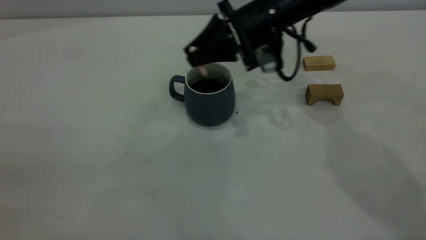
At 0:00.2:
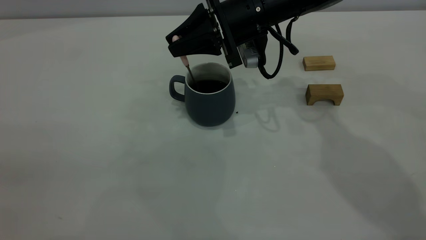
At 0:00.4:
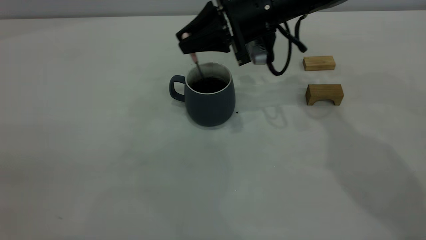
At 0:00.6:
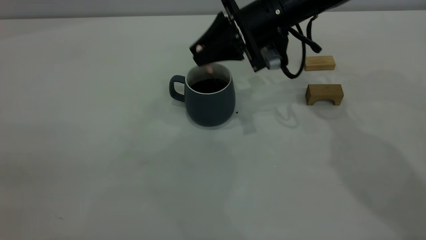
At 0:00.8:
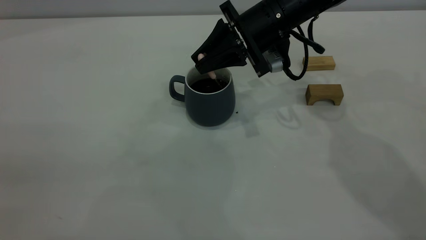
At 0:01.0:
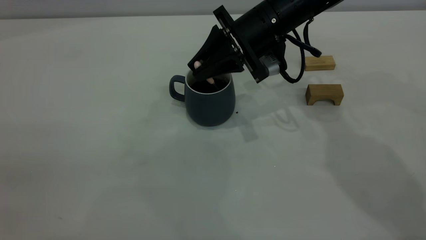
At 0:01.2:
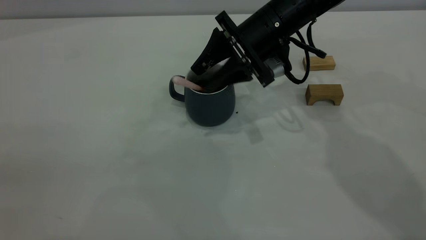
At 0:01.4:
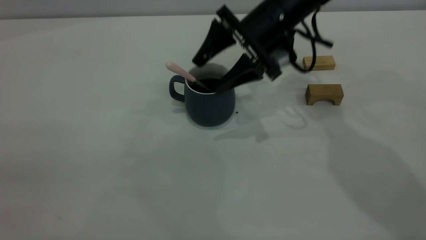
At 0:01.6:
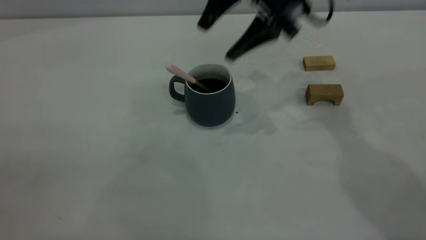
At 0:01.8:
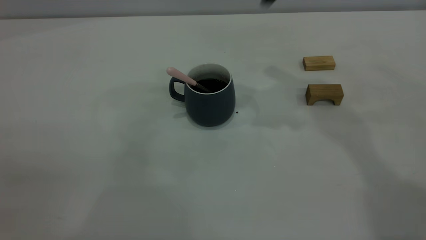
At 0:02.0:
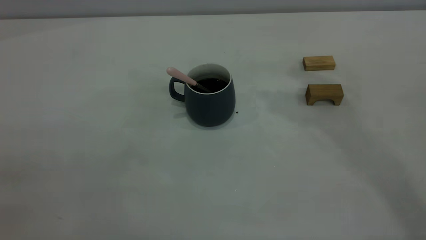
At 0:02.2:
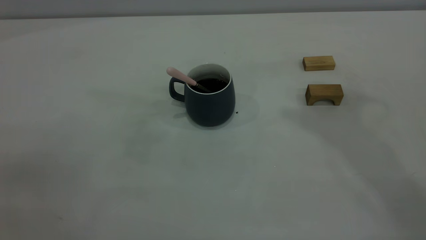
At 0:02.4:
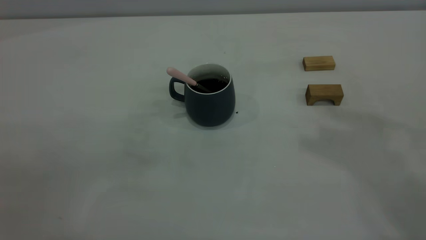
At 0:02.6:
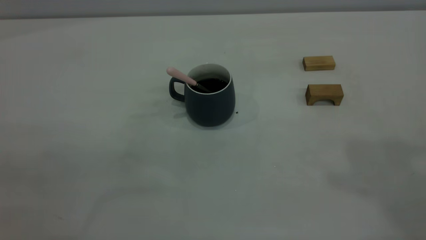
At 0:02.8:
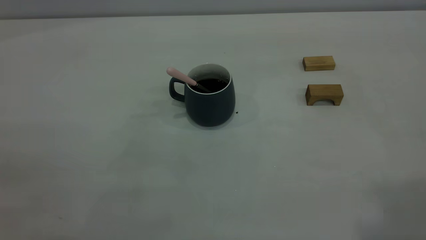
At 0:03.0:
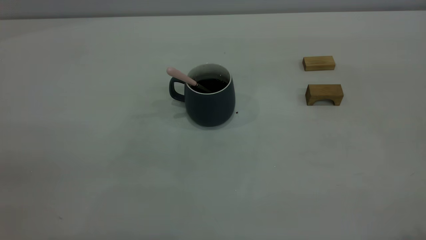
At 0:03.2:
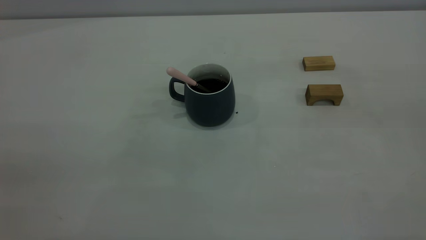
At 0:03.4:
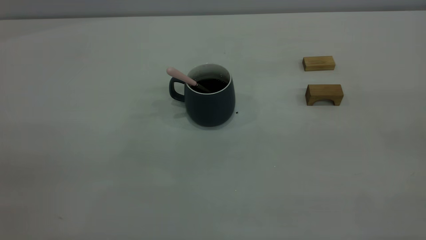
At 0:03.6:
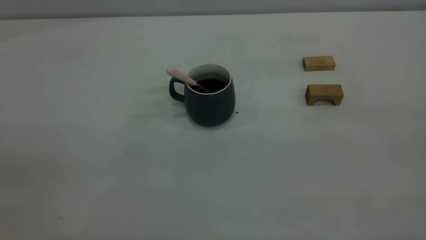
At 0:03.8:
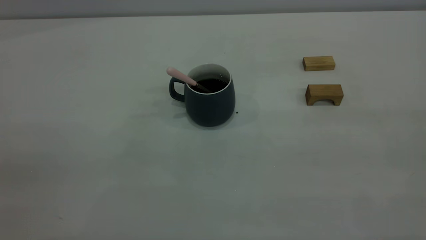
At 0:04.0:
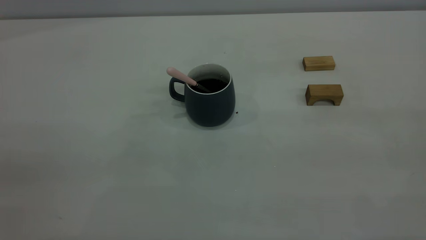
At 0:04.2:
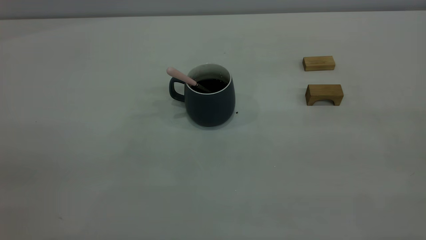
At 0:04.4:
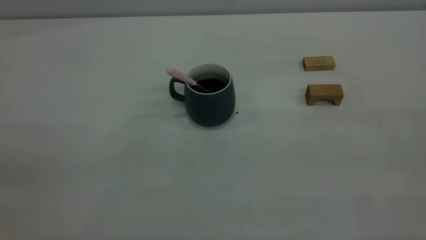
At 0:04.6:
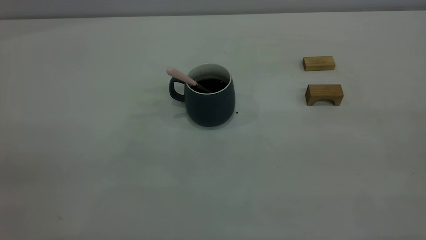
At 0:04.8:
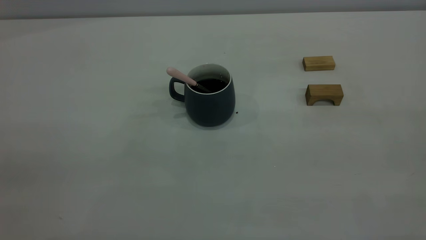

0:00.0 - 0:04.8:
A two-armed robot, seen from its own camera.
0:00.0 - 0:01.6: The right gripper goes some 10 cm upward, and opens up.
0:01.6 - 0:03.2: The right gripper moves backward, upward and to the right, approximately 50 cm, and closes.
